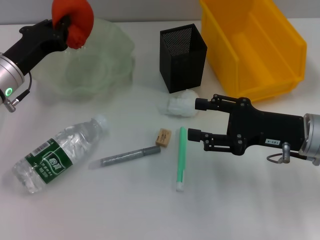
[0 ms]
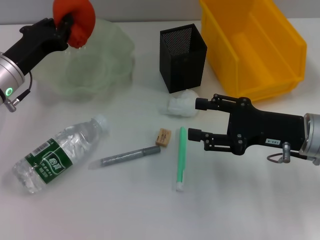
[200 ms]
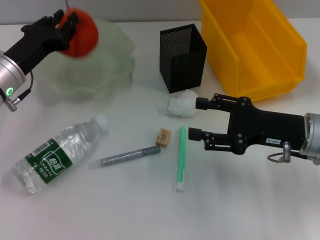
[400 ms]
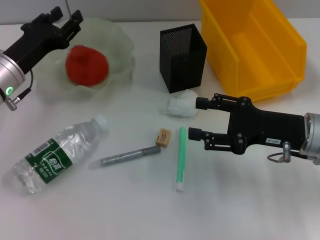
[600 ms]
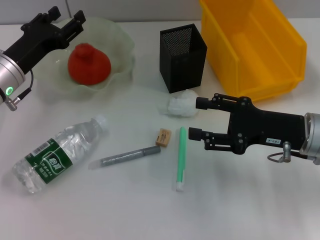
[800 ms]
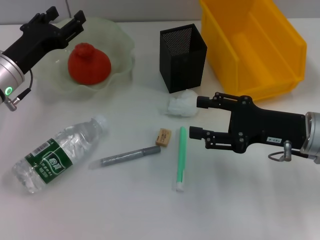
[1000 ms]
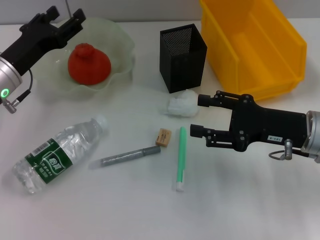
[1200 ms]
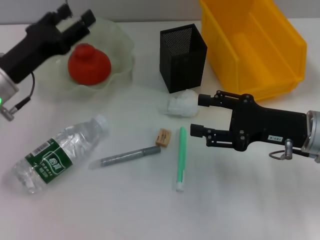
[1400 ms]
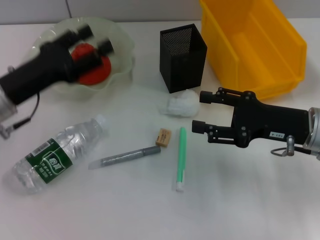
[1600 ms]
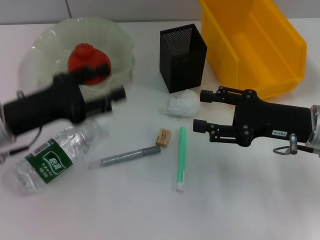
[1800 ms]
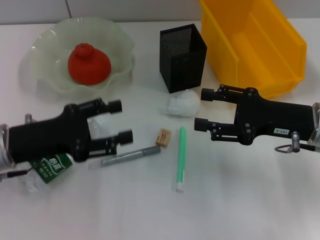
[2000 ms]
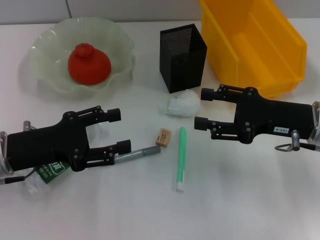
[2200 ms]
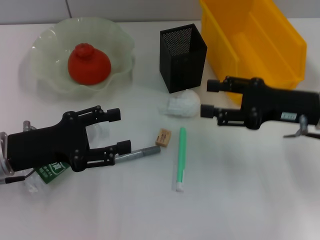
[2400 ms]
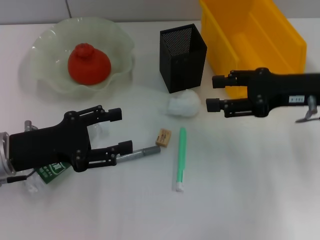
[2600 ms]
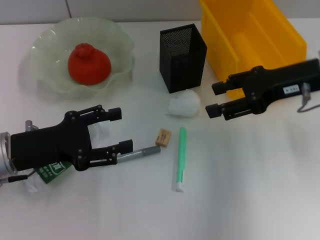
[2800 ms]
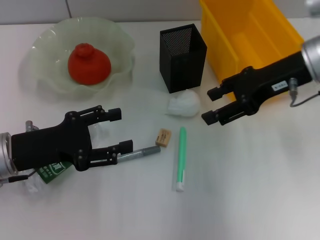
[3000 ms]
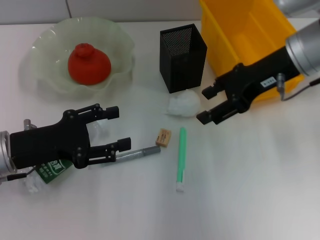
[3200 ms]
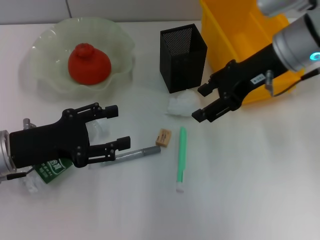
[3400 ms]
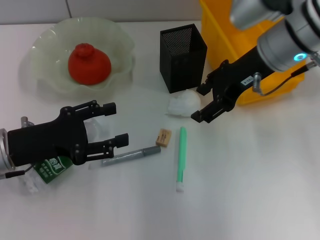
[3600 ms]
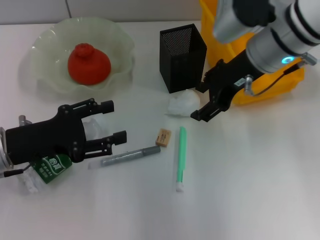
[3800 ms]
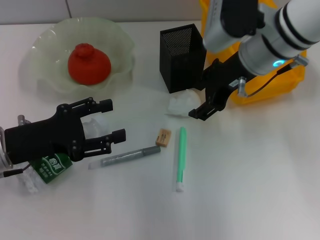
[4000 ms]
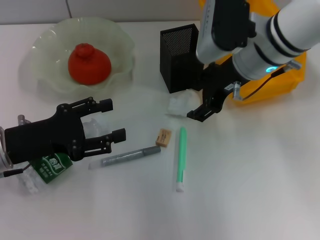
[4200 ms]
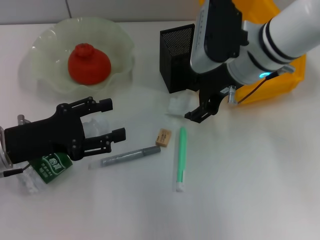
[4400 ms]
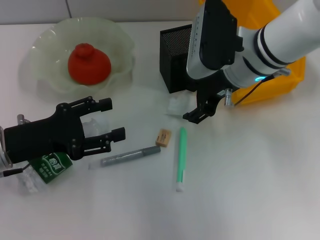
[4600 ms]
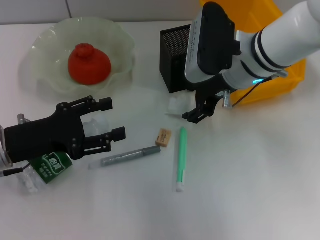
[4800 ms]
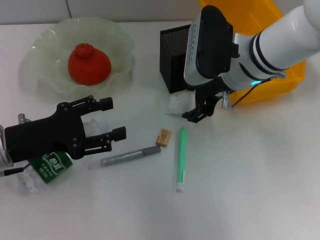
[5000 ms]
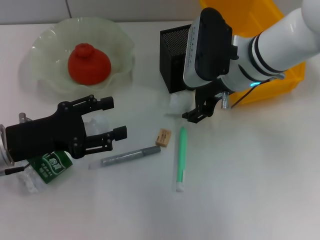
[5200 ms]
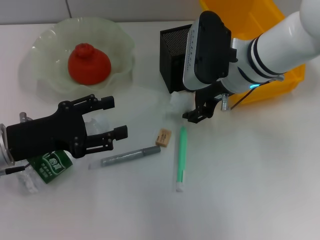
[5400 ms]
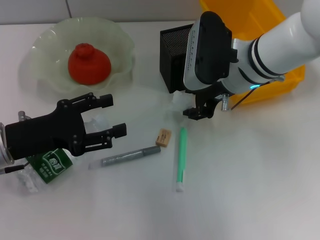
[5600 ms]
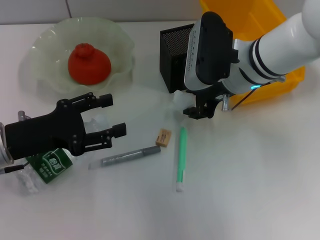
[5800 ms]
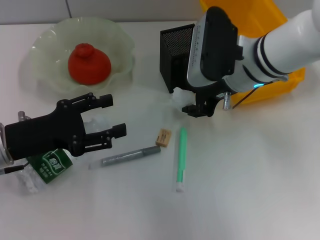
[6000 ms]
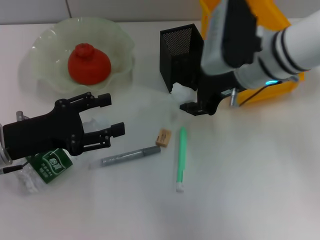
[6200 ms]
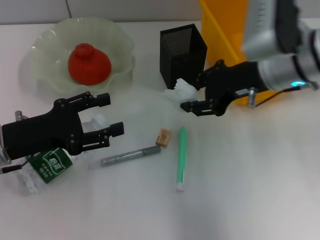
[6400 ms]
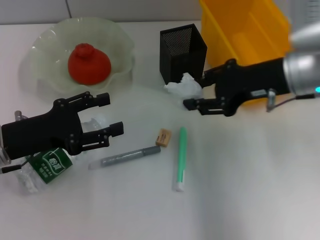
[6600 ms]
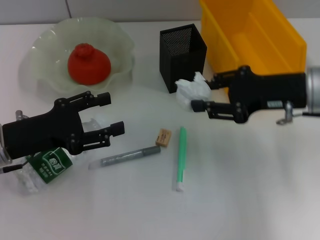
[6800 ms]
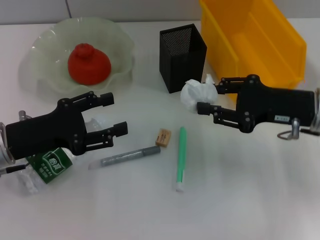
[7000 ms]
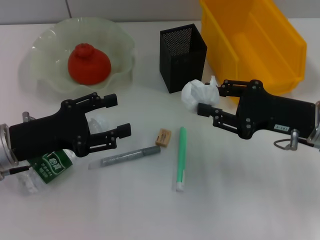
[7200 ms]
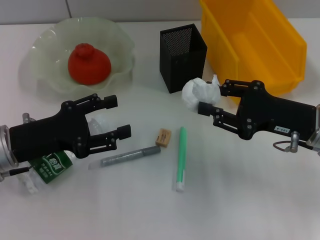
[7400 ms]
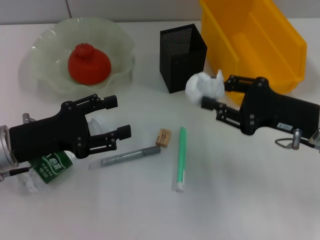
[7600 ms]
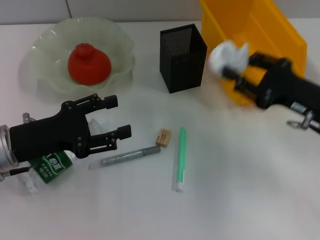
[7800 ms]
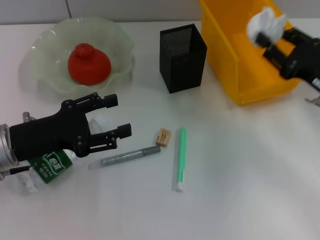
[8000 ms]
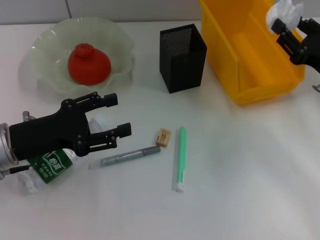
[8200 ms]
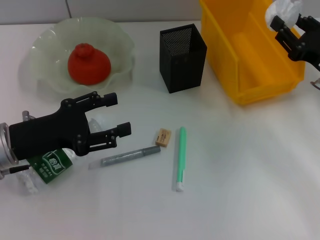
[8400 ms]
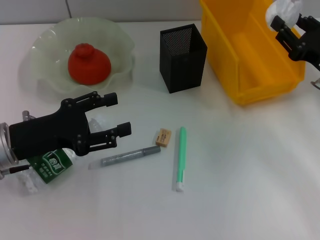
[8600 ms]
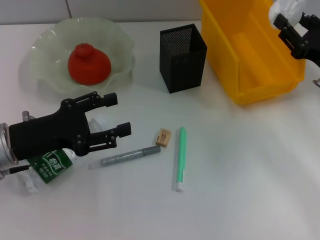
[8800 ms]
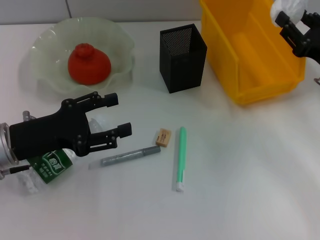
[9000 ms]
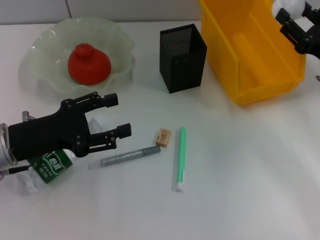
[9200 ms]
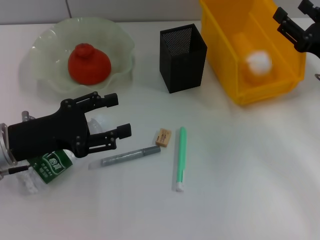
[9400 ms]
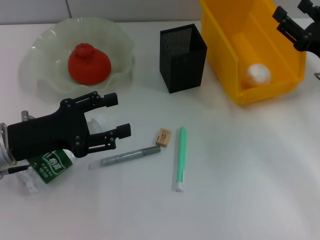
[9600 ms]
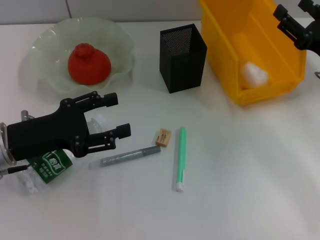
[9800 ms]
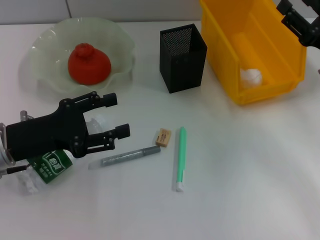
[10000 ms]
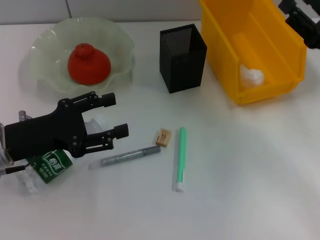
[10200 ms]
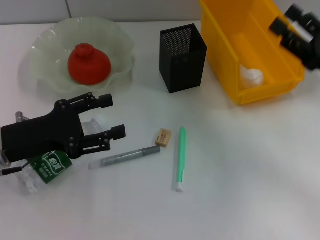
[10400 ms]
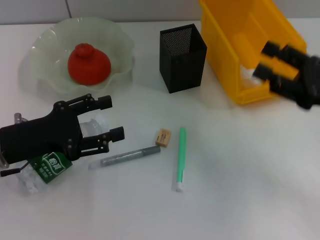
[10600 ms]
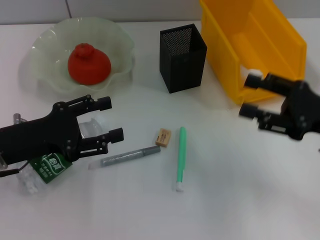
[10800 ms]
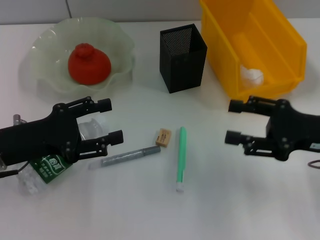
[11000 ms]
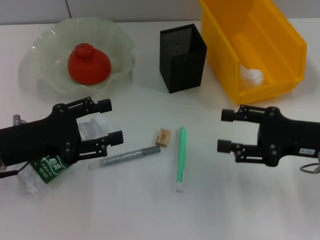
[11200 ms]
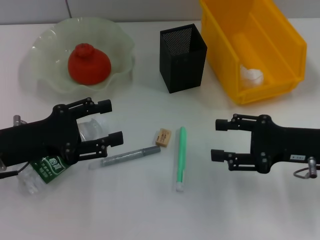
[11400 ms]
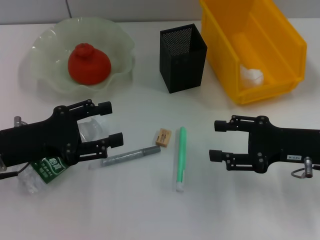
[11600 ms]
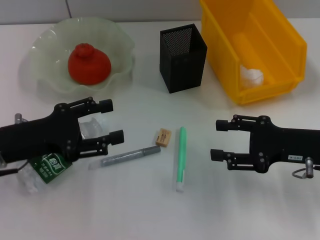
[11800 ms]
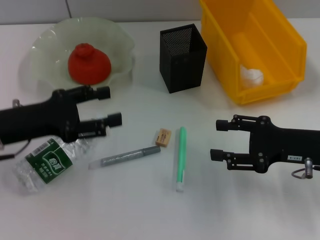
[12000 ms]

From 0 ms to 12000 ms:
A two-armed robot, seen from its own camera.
Step, from 800 ms to 5600 ms: Grab the paper ball with the right hand.
Step, from 6000 ms to 10400 ms: Place the paper ball into the trash can with the right hand.
From 0 ms to 1600 ms: The left gripper moves backward, roughly 5 cm, and opens.
From 1600 ms to 3000 ms: The left gripper changes place by roughly 5 cm. The right gripper heads upward and forward, covering roughly 15 cm.
From 3000 ms to 4400 ms: The right gripper is displaced to the left by roughly 10 cm.
From 4400 ms to 6000 ms: The right gripper closes.
From 6000 ms to 7600 ms: The right gripper shifts about 15 cm to the right, backward and downward.
From 7600 ms to 9000 ms: The right gripper goes about 5 cm to the right.

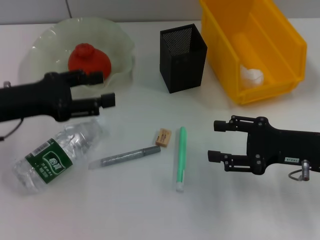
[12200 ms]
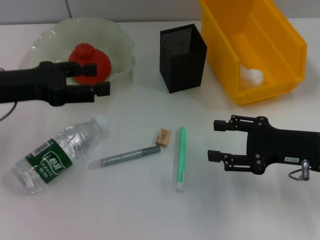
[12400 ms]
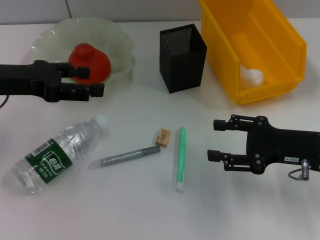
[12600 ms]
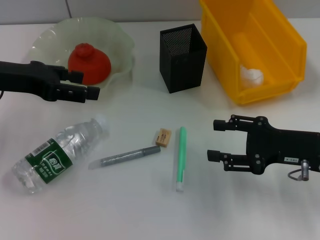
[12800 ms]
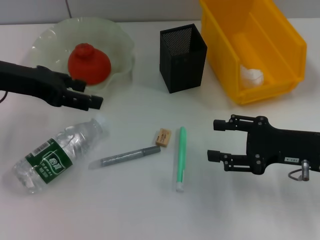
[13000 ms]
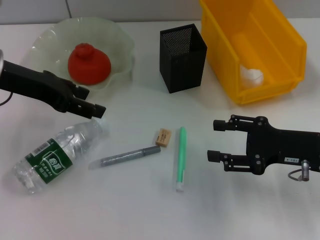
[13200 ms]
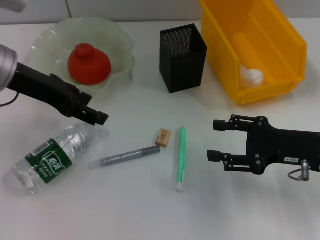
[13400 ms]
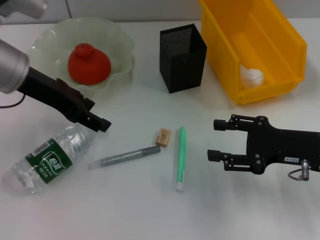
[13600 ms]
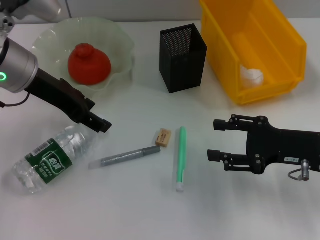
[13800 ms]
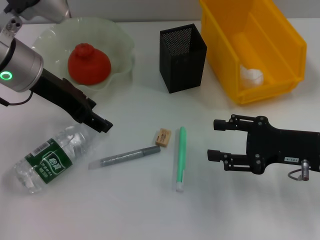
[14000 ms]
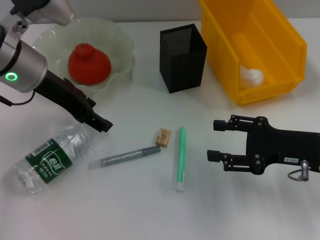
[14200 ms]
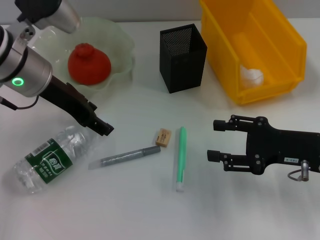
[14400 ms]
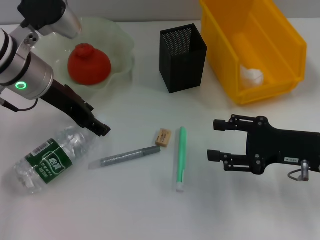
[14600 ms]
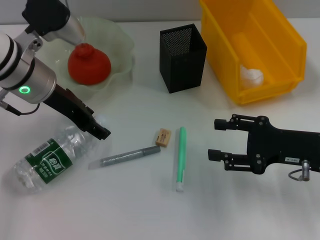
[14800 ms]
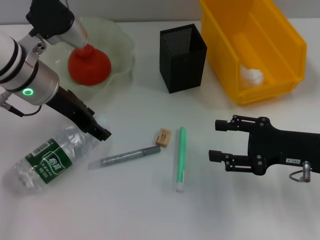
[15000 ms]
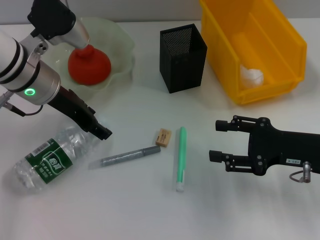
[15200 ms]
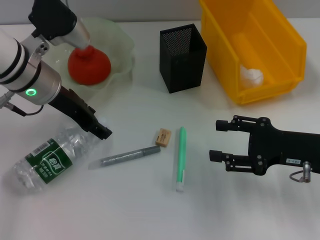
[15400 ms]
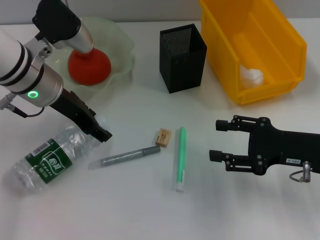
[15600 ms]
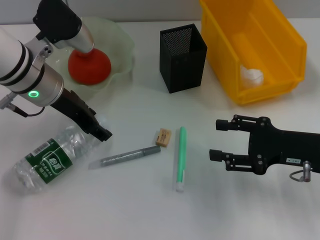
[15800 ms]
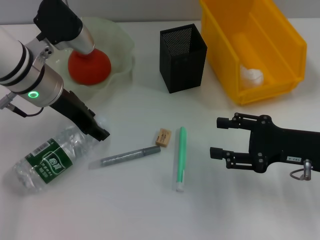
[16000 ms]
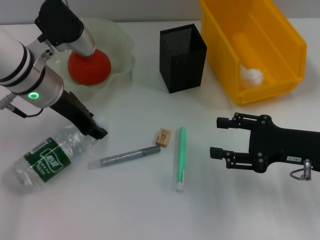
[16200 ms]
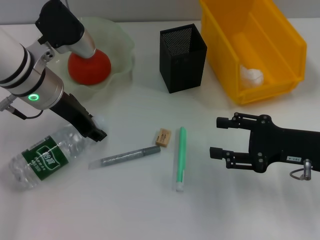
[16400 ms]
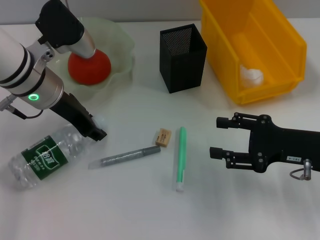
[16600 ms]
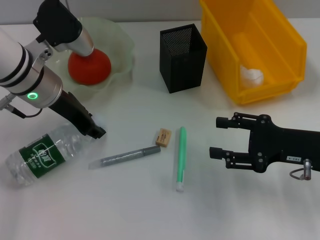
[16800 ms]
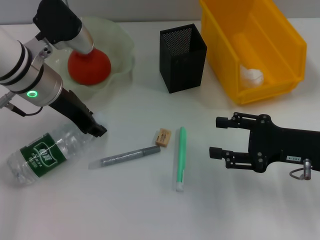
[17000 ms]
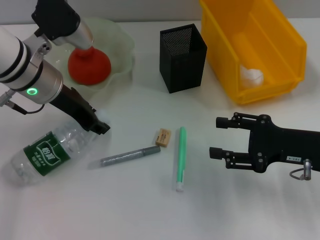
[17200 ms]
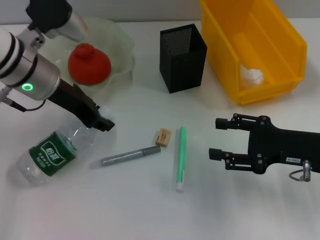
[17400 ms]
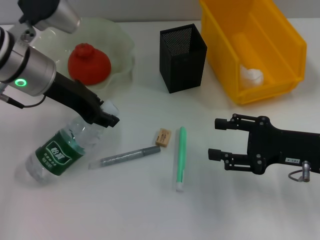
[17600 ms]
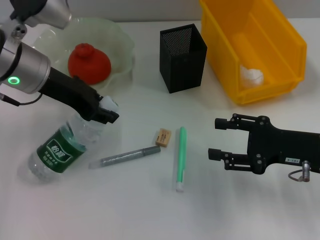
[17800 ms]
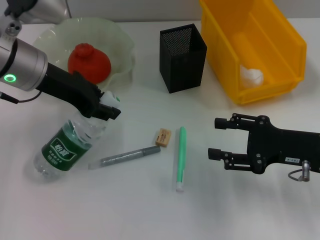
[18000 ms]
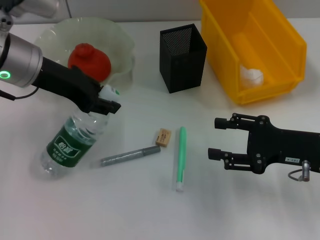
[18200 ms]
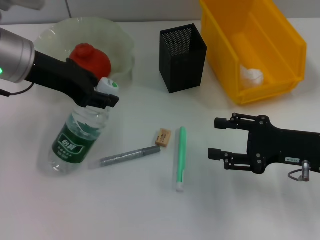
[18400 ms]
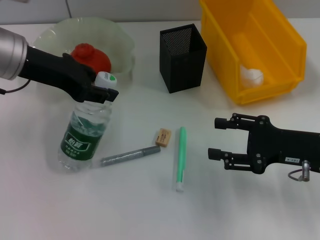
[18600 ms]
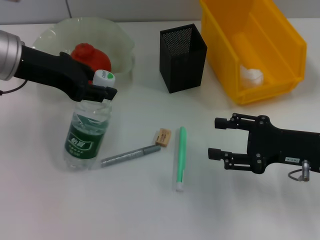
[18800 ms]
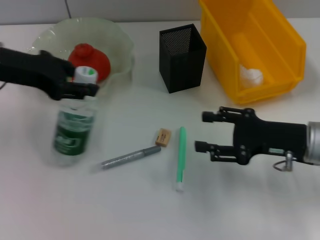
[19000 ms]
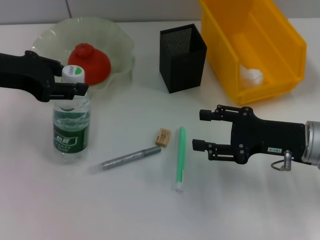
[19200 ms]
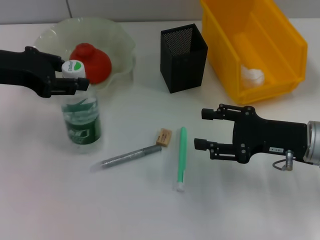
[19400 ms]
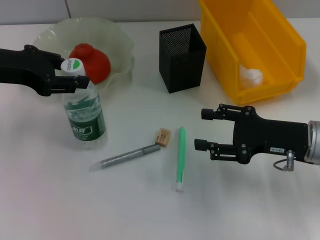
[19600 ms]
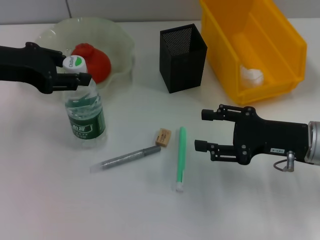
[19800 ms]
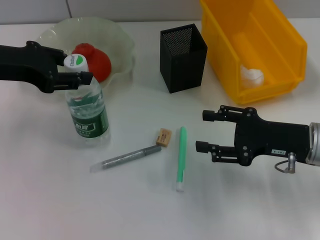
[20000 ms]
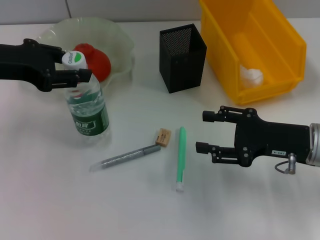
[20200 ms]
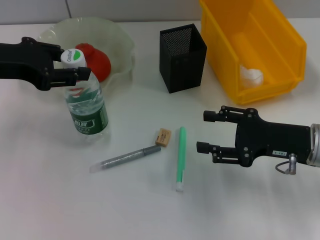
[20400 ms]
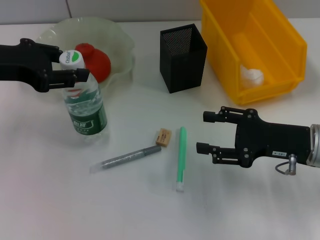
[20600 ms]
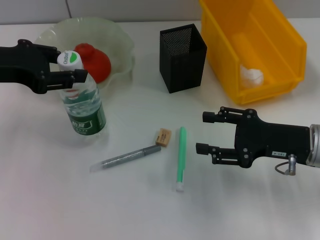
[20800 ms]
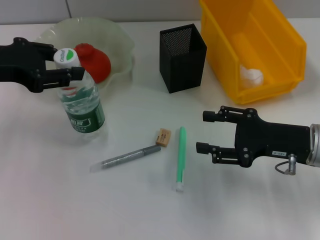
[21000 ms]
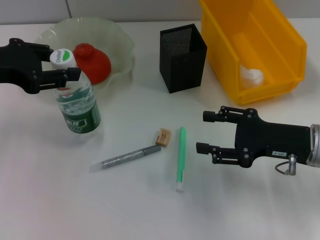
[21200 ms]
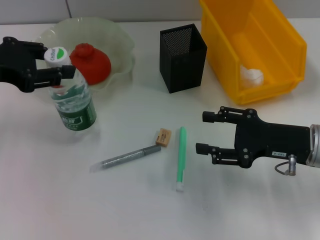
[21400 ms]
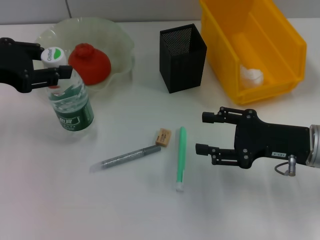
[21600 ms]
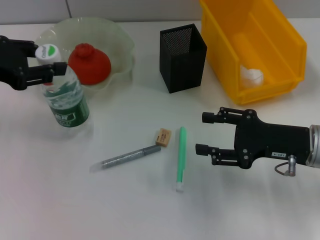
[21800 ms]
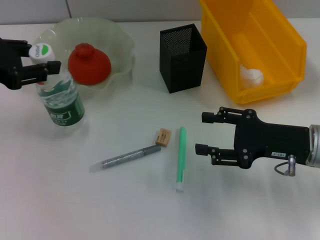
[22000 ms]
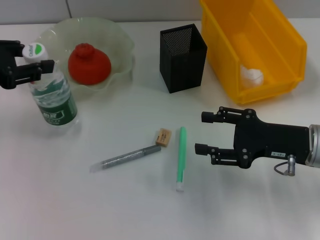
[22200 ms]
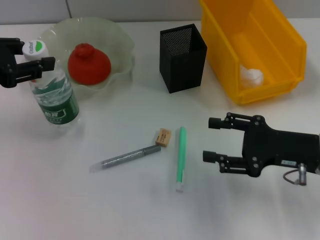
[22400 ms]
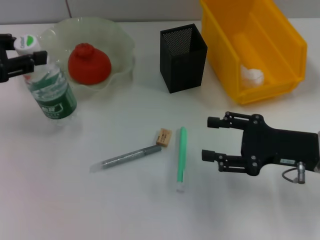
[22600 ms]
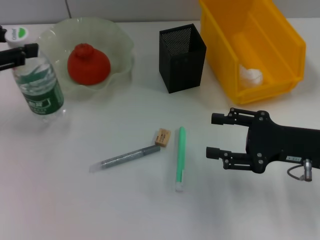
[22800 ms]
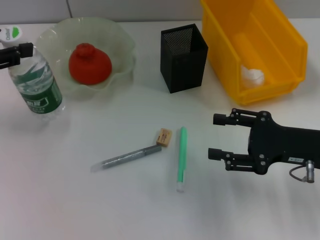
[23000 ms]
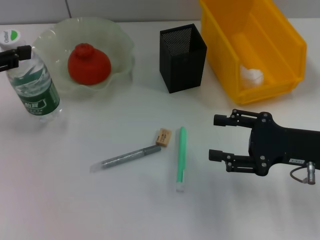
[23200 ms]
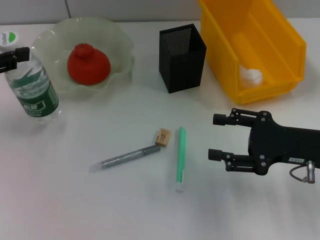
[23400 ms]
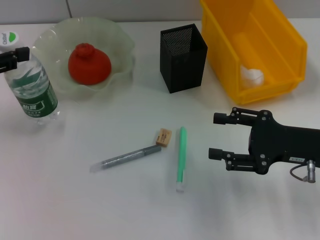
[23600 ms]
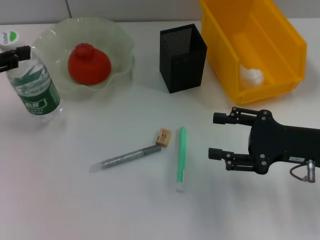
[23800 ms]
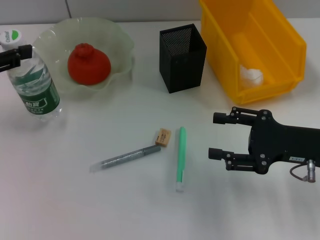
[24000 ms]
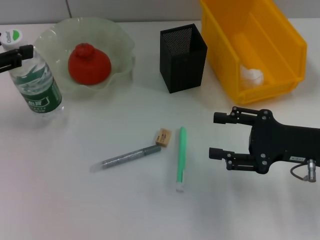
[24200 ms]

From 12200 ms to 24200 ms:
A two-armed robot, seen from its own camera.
Step, from 12200 ms to 16600 ms: Grab the water bottle with the left hand.
From 12200 ms to 13800 ms: The left gripper is displaced forward, upward and to the right by about 10 cm.
From 13800 ms to 15200 ms: The left gripper ends up roughly 5 cm from where it was.
From 15200 ms to 16600 ms: The left gripper closes.
From 16600 ms to 18200 ms: The left gripper moves upward, roughly 5 cm.
From 18200 ms to 19800 ms: The left gripper travels to the left by some 5 cm.
From 19800 ms to 22600 ms: The grippers stay close to where they were, moving slightly.
From 22600 ms to 24200 ms: The grippers stay close to where they were, moving slightly.
